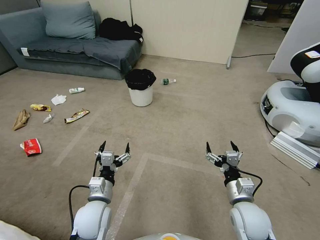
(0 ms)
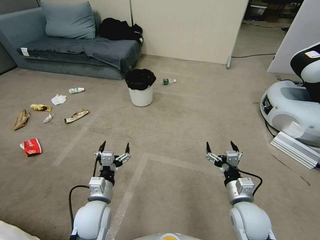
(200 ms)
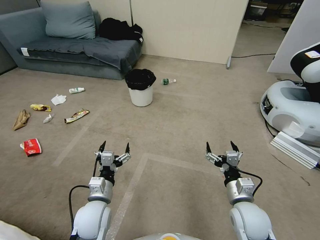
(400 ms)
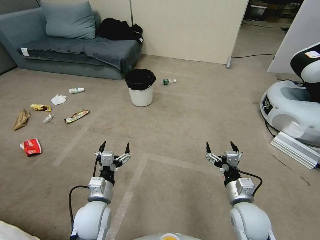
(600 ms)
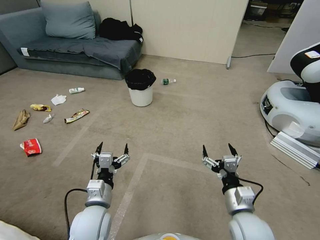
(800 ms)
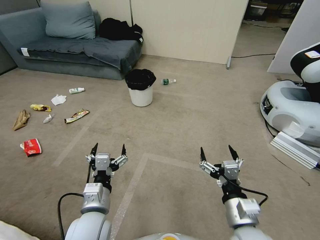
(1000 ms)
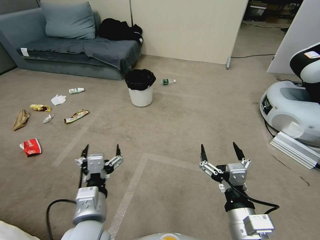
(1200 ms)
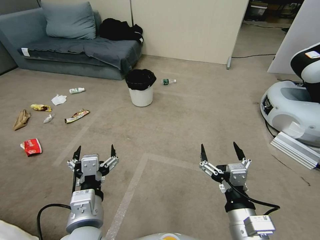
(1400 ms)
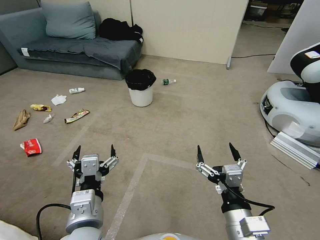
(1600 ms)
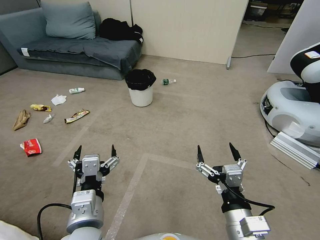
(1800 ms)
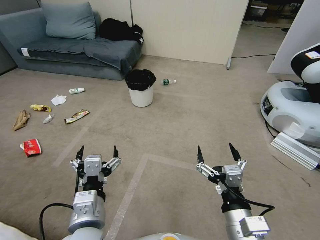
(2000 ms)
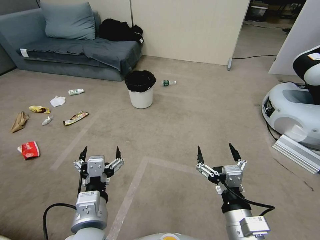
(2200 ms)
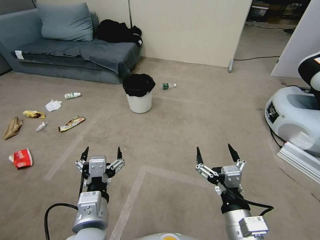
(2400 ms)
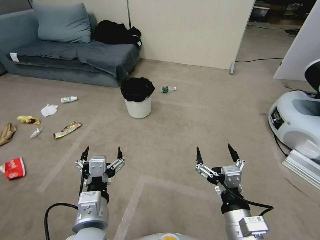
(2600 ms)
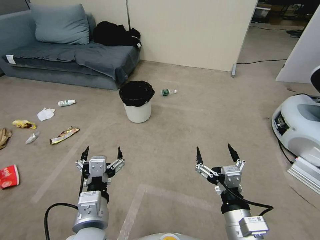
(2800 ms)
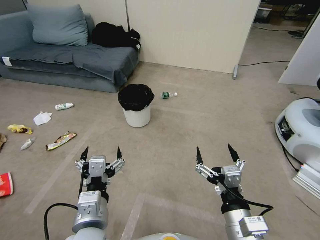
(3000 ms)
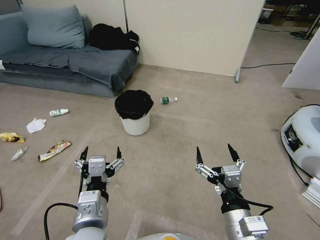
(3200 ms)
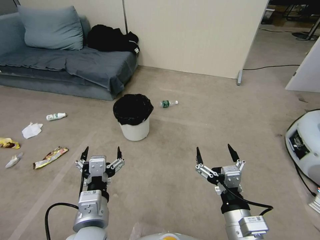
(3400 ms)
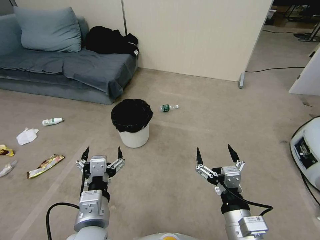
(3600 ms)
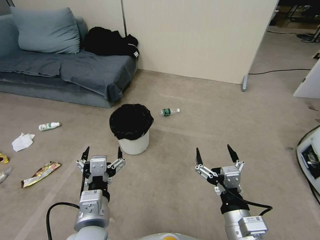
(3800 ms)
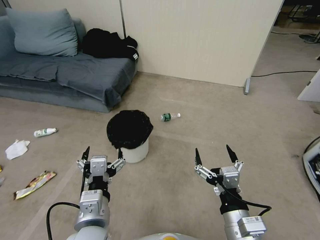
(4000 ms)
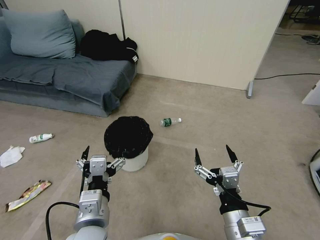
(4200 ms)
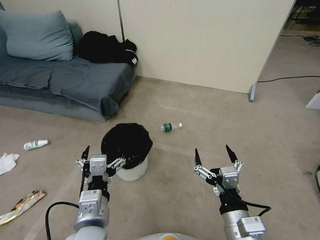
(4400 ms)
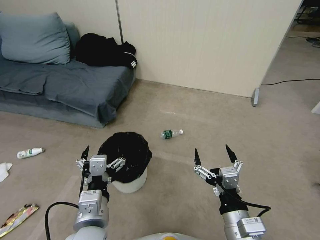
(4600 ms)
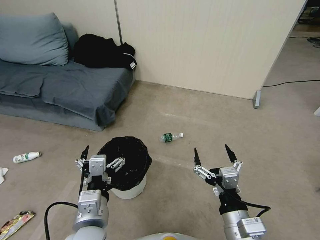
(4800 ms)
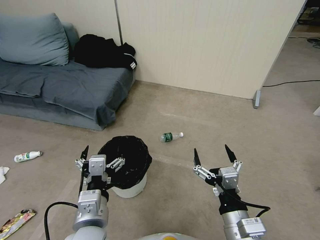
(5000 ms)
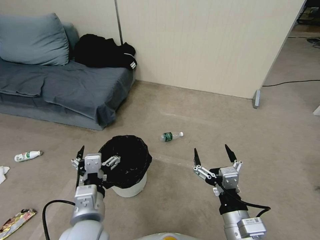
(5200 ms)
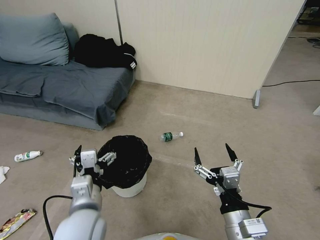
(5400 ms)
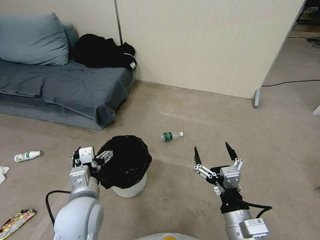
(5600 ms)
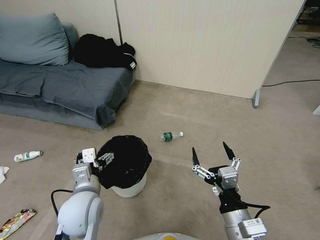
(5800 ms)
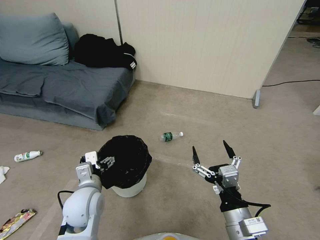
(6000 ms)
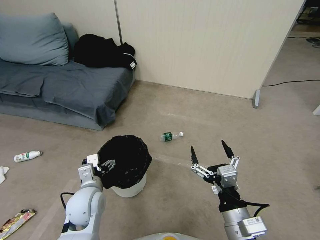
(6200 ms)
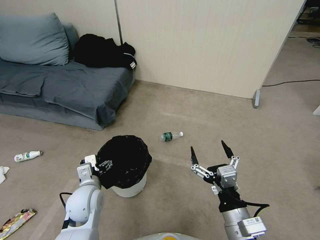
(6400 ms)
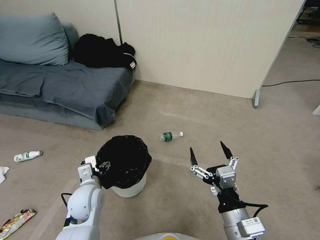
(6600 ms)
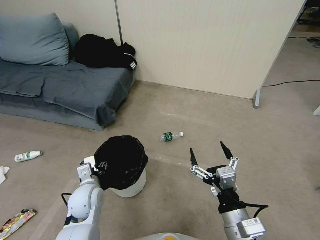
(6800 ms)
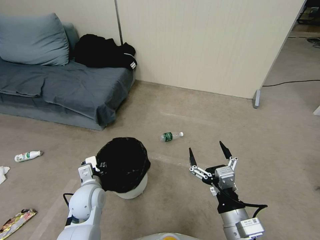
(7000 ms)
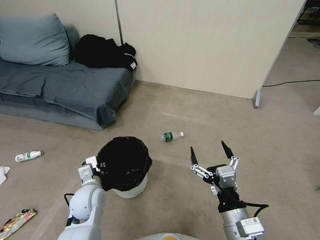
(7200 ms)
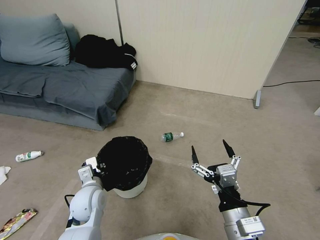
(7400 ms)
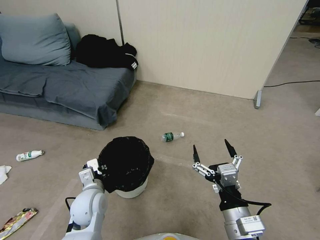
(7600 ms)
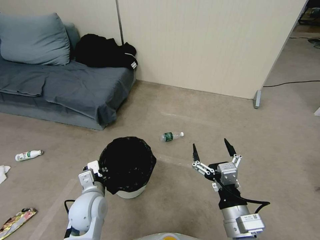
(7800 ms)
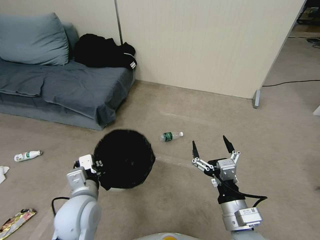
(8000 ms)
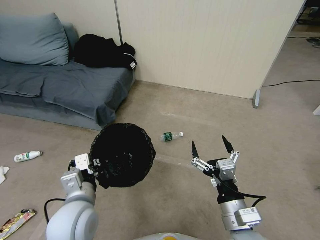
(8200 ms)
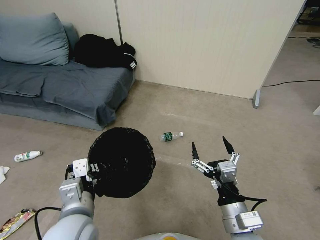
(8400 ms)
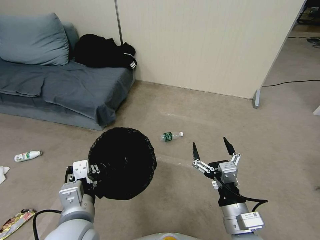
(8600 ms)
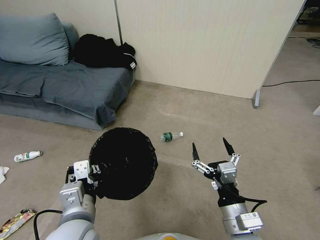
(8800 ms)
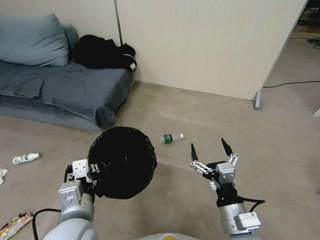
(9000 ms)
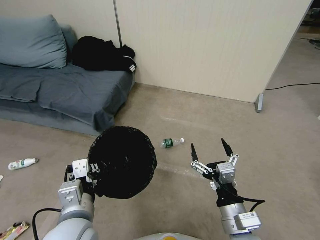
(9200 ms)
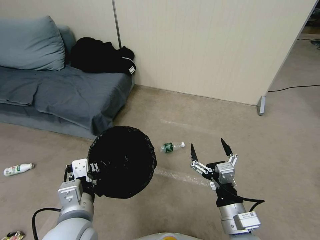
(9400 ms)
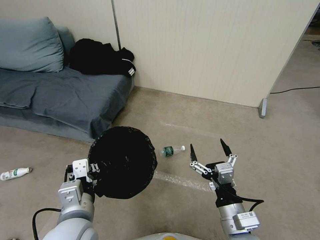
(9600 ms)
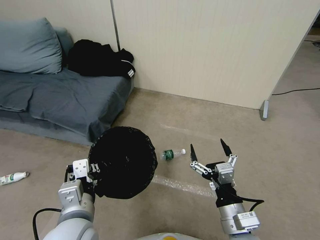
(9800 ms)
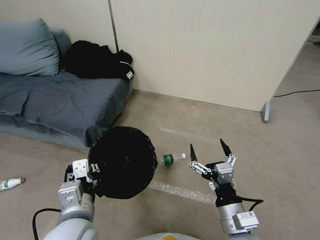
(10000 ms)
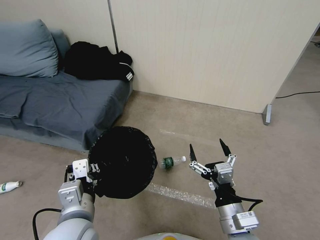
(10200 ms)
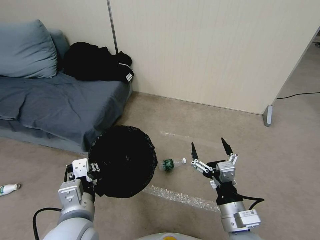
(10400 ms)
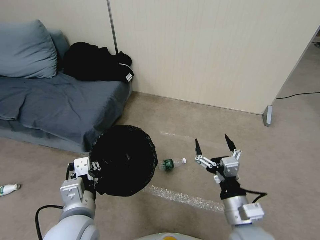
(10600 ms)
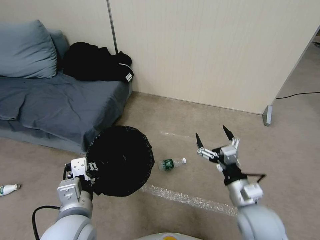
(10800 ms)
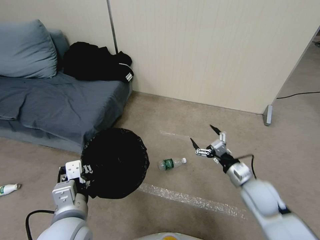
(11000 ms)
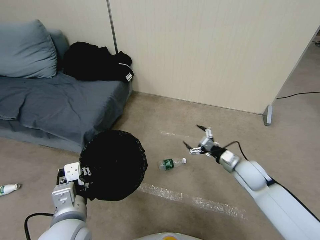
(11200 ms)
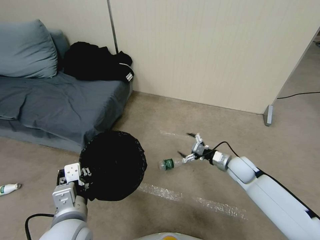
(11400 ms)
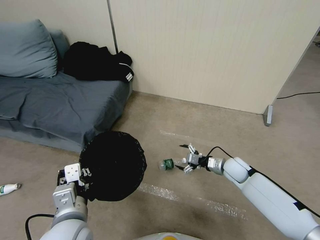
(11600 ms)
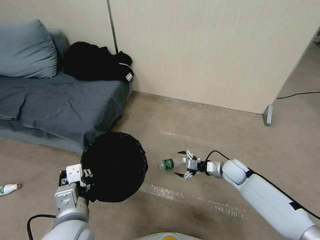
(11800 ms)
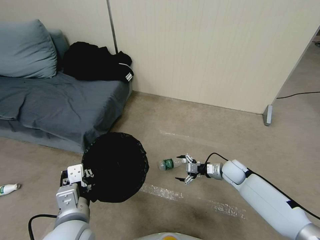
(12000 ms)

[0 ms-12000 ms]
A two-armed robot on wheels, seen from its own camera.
Task of the whole recording: Pick up the trash bin, then pick up the garbage from the floor and place it into the trash bin.
4400 ms to 6000 ms: The left gripper is displaced forward, downward and to the left by approximately 15 cm.
6000 ms to 7600 ms: The left gripper closes its fingers.
7600 ms to 9000 ms: The left gripper heads upward and backward, covering some 15 cm.
10400 ms to 12000 ms: The right gripper heads forward, downward and to the right, covering roughly 35 cm.

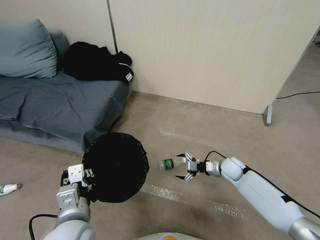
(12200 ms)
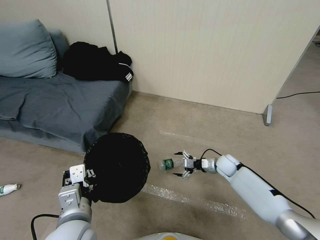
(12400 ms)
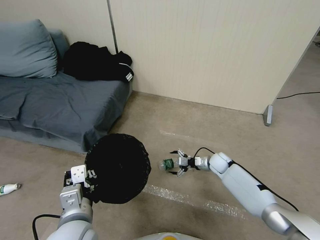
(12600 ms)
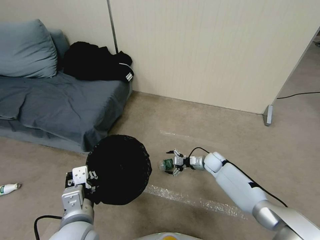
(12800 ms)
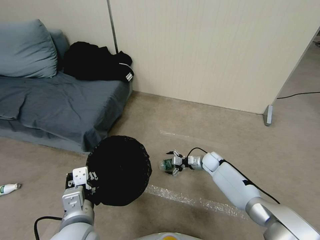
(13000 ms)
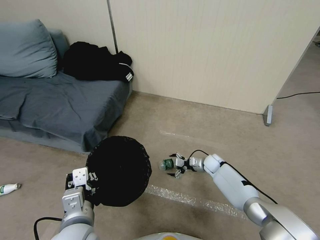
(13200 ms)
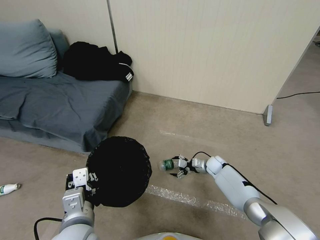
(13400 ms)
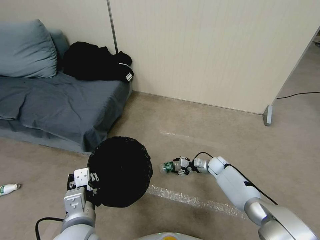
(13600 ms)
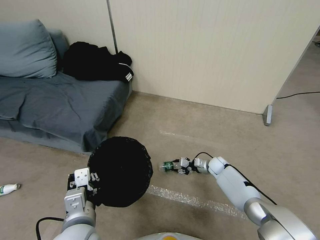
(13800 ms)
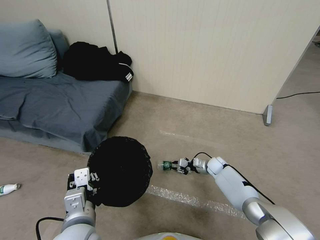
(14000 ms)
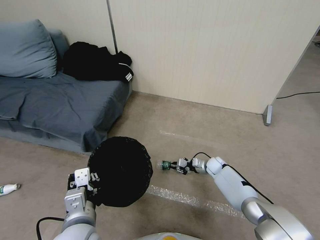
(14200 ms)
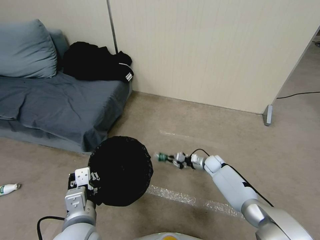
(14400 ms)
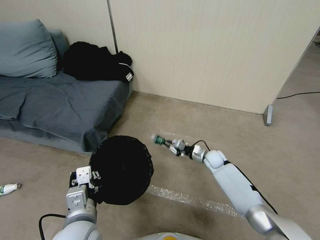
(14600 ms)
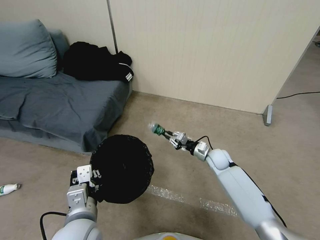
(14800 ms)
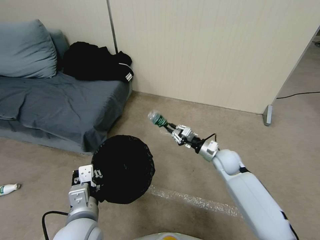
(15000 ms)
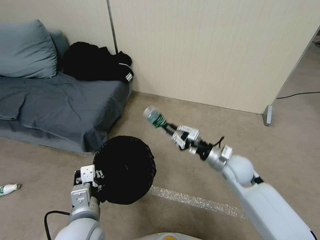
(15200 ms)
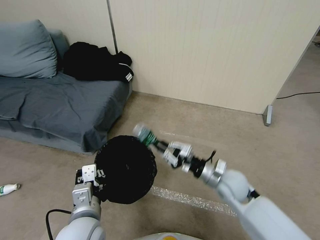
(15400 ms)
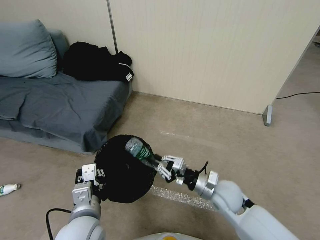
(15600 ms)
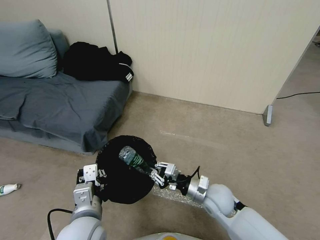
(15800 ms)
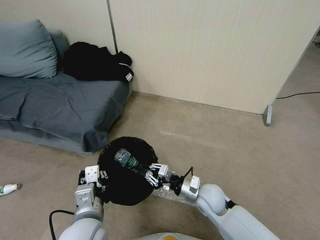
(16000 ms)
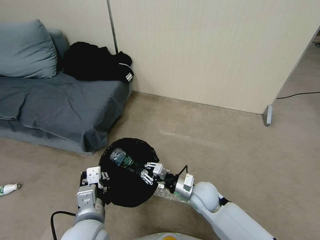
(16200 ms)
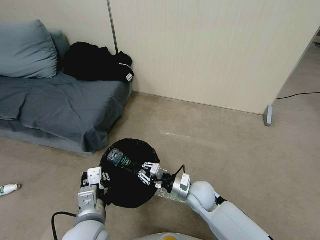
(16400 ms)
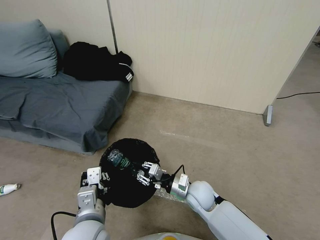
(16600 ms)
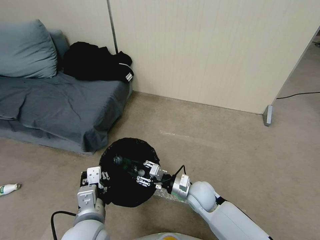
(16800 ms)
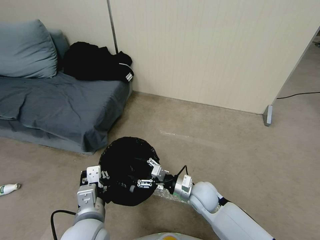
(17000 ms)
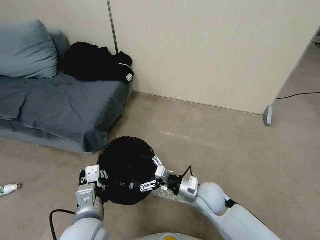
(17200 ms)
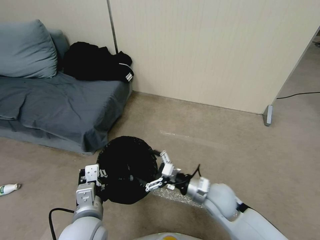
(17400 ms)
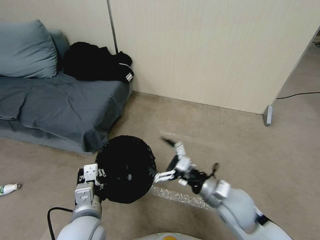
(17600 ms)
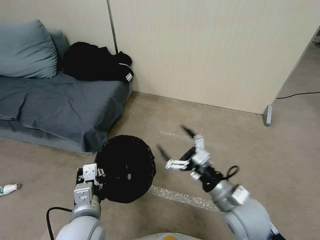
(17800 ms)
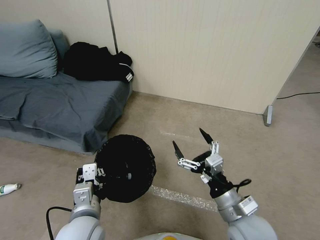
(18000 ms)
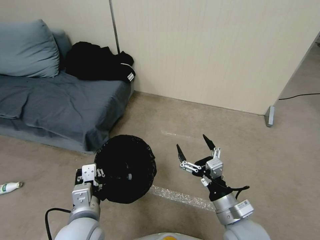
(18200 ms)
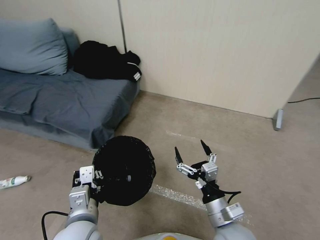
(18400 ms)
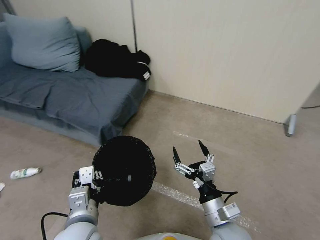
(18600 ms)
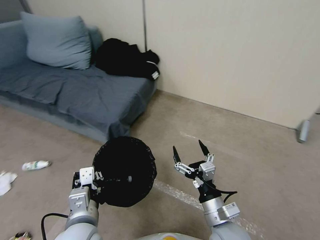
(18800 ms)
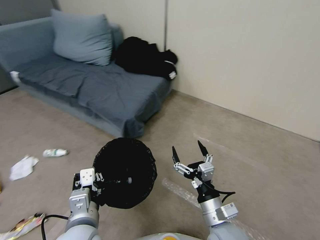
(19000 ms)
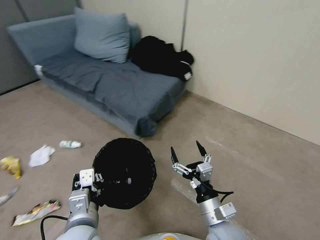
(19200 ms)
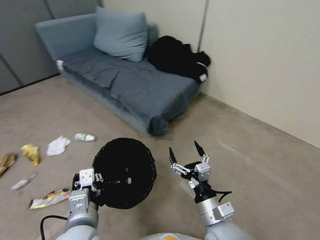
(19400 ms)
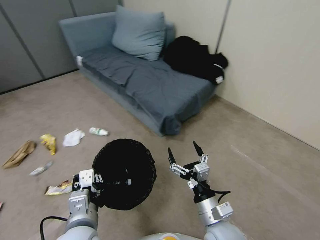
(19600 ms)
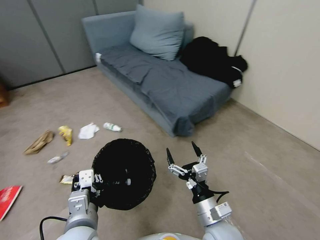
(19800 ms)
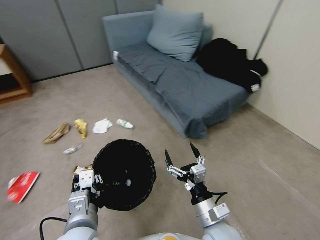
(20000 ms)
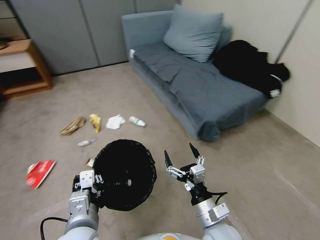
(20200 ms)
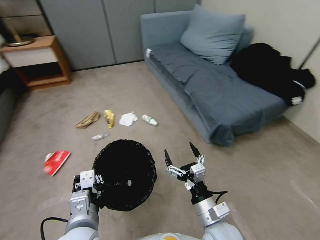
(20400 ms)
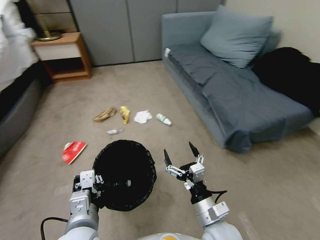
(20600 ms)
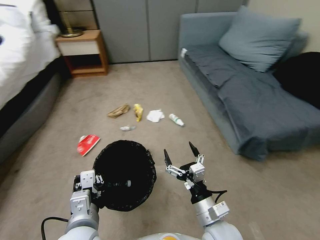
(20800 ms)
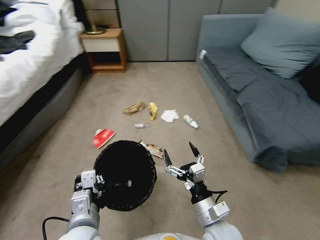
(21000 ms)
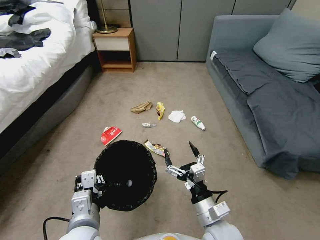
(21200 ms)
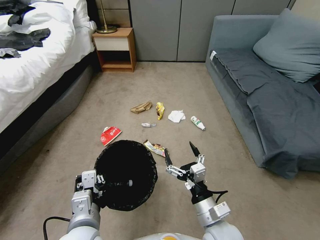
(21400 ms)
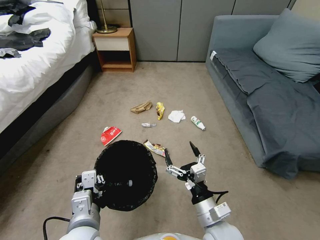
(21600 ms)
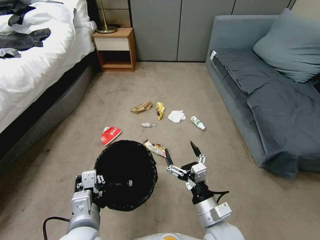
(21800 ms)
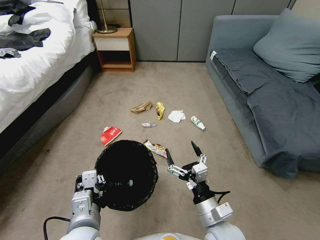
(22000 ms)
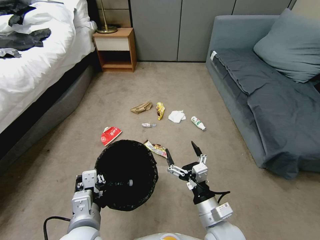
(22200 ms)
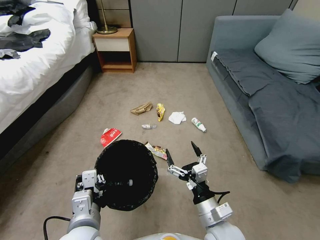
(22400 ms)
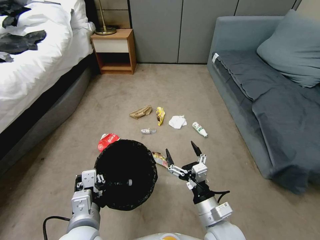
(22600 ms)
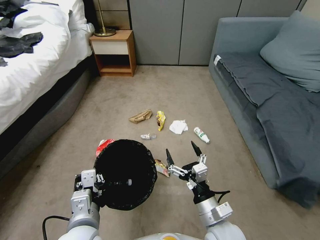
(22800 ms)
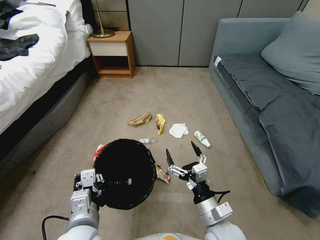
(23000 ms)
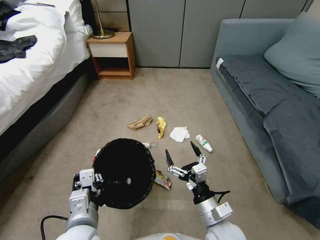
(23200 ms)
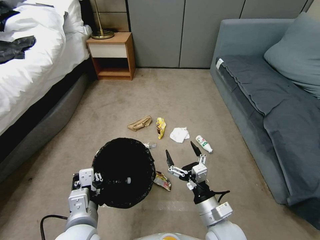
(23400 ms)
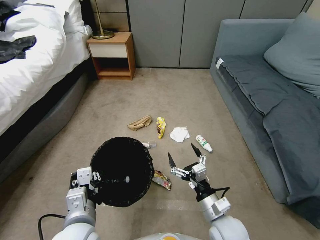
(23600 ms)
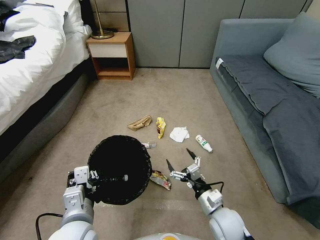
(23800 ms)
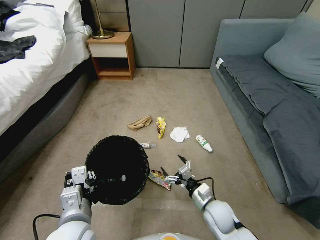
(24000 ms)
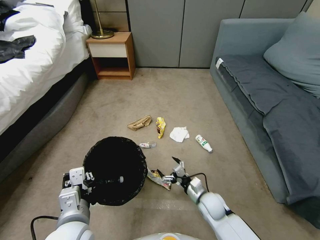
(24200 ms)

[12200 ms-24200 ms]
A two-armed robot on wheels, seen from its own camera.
Task of the whole recording: Pick up the trash bin, then pick up the garbage from the floor and place it into the trash bin.
12200 ms to 13800 ms: The right gripper heads downward, covering roughly 10 cm, and closes.
13800 ms to 15200 ms: The right gripper goes some 25 cm upward and backward, and closes its fingers.
15200 ms to 16600 ms: The right gripper goes about 15 cm to the left, downward and backward.
16600 ms to 18200 ms: The right gripper heads backward, upward and to the right, covering roughly 20 cm, and opens up.
18200 ms to 19800 ms: The right gripper changes place by approximately 5 cm.
21200 ms to 22600 ms: Both grippers stay put.
22600 ms to 24200 ms: The right gripper heads downward and forward, covering some 20 cm.
